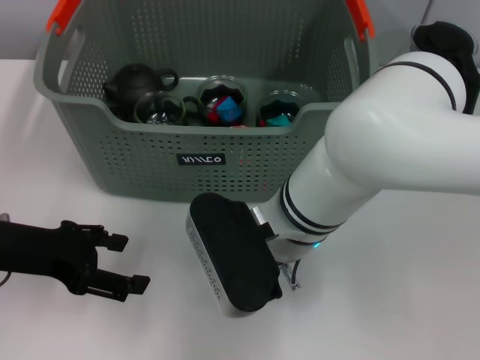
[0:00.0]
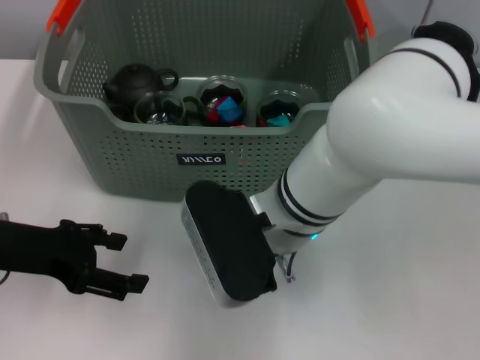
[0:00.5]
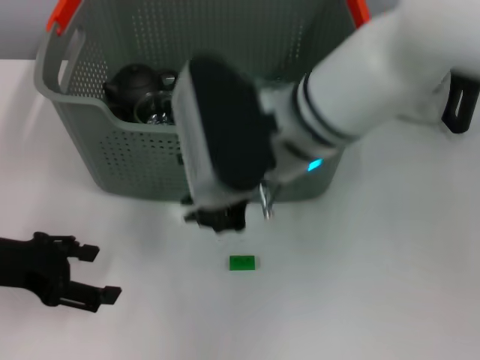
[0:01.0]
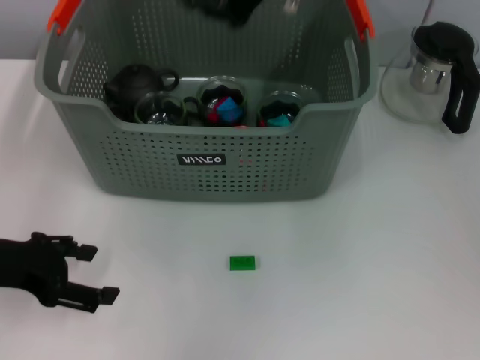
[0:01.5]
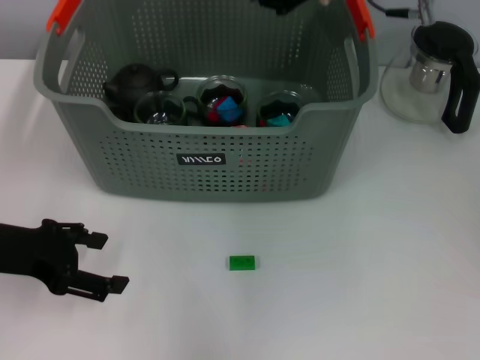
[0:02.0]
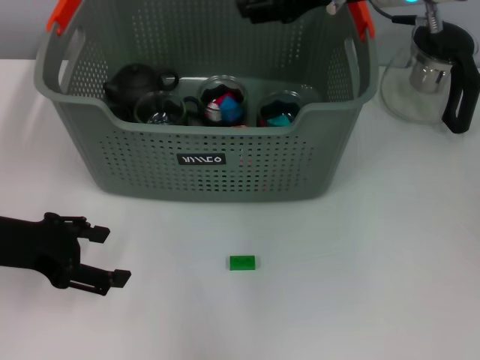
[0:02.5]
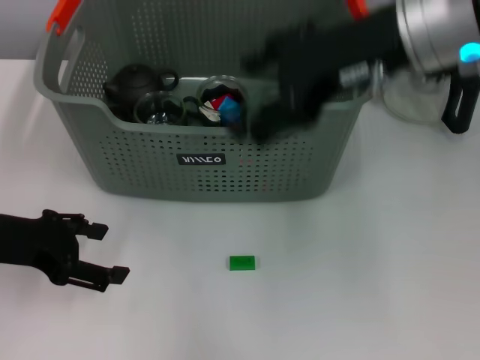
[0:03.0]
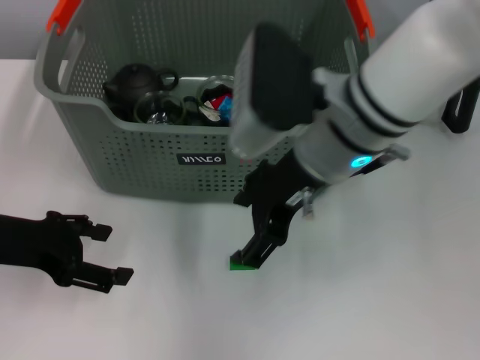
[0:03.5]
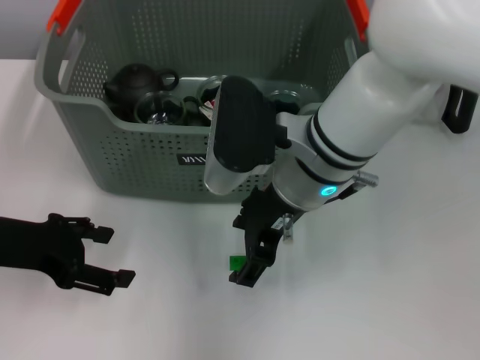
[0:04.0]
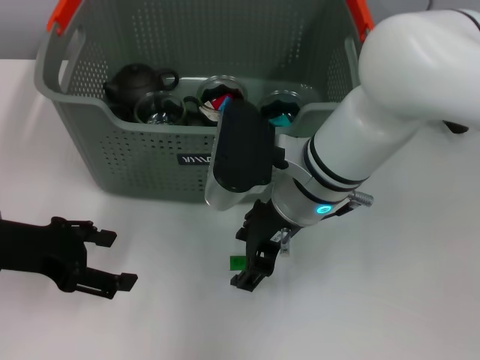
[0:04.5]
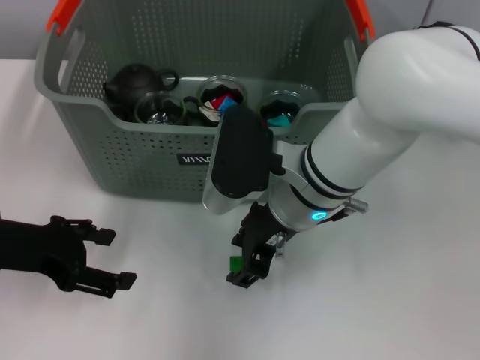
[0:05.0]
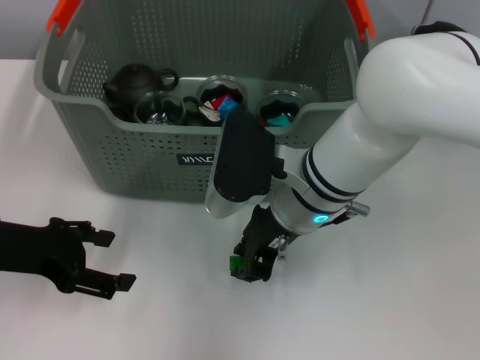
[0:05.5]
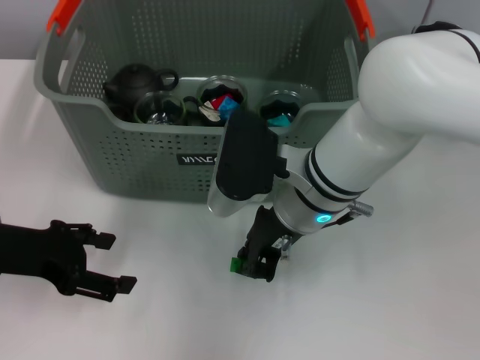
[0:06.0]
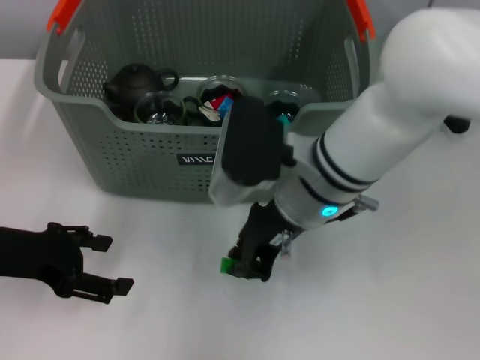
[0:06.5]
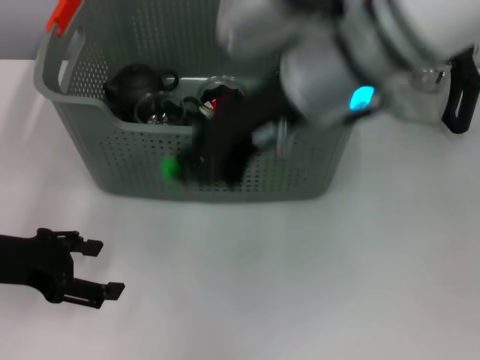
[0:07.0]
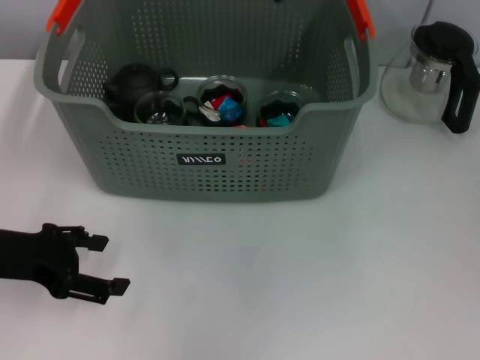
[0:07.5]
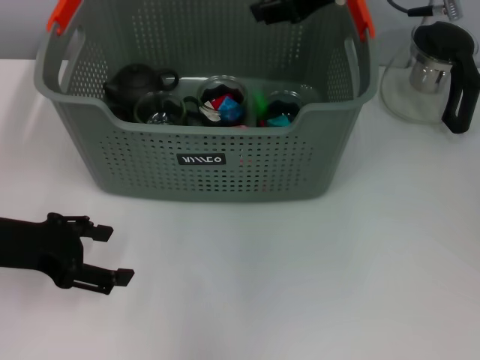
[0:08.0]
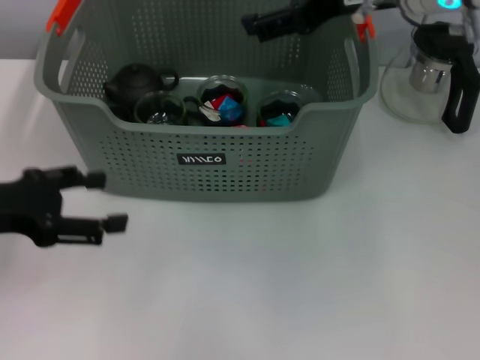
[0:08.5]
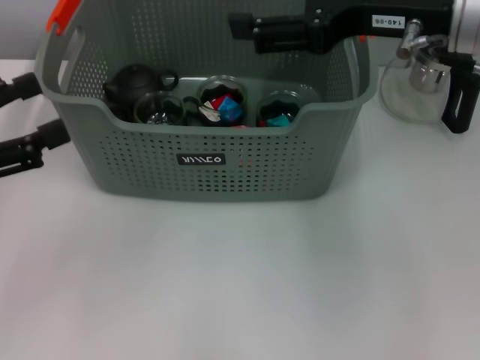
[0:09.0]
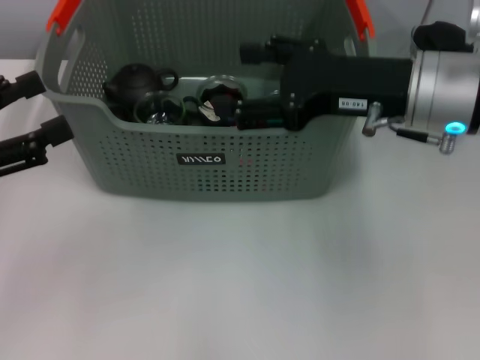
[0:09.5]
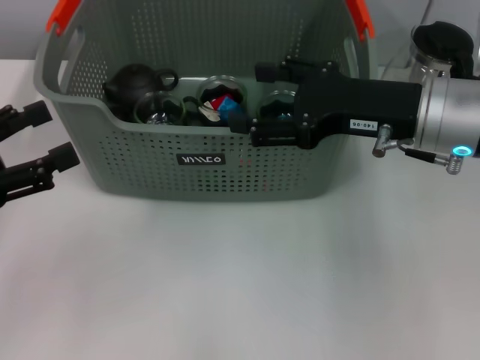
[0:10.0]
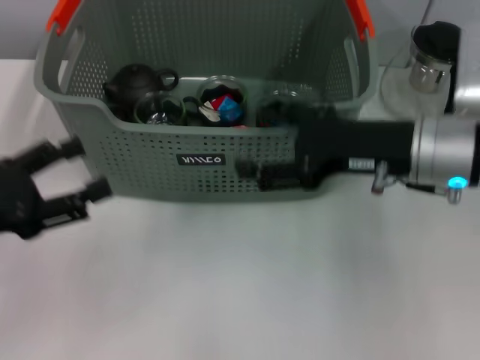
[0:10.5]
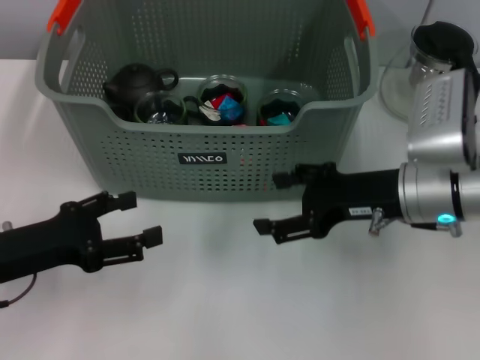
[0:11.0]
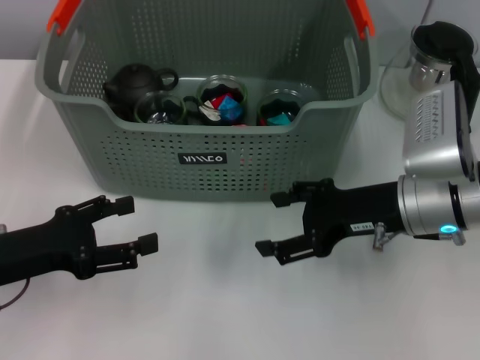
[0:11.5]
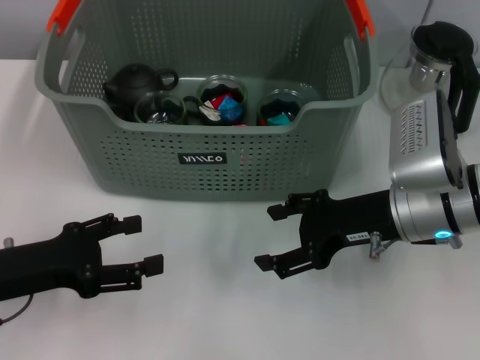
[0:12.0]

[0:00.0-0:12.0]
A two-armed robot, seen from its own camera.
Task of the whole recording: pick up the teacup on the table and place it into the storage bin, pick up the block on the table and place it into the storage bin.
Step, 0:00.5 to 0:02.0: Place the white block in the storage box with right gripper.
Step, 0:02.5 to 0:05.5: Grasp the green block with right gripper.
Step, 0:06.5 to 0:08.0: Place the green block in the storage box with right gripper.
0:00.0 to 0:02.0: The right gripper shifts roughly 20 cm upward, forward and to the right.
0:02.0 to 0:04.0: The right gripper heads downward, backward and to the left, covering roughly 15 cm, and opens.
0:04.0 to 0:06.0: The right gripper closes its fingers.
0:06.0 to 0:08.0: The right gripper travels upward, forward and to the right by some 20 cm.
0:08.0 to 0:10.0: The left gripper shifts by about 5 cm. Meanwhile the right gripper heads downward and backward, covering about 15 cm, and opens up.
0:10.0 to 0:12.0: The grippers both shift downward by roughly 5 cm.
